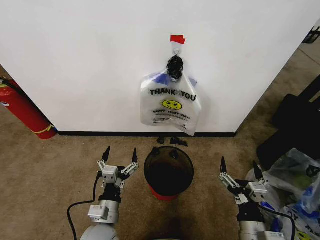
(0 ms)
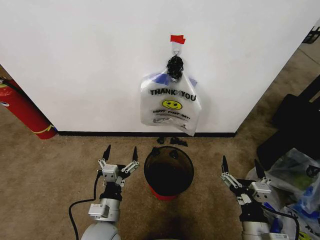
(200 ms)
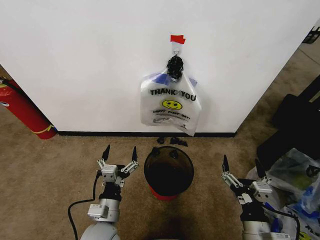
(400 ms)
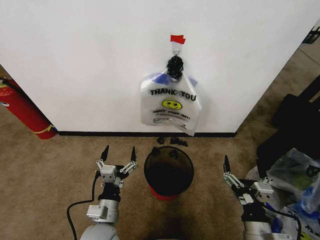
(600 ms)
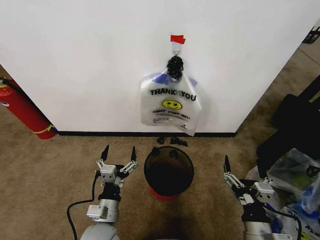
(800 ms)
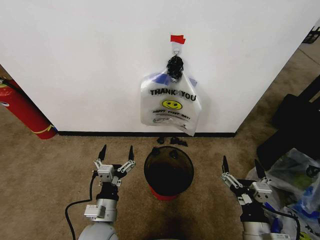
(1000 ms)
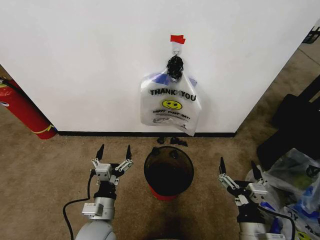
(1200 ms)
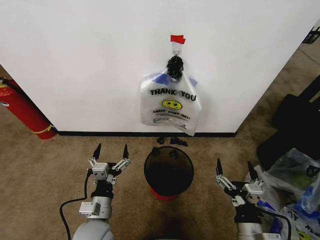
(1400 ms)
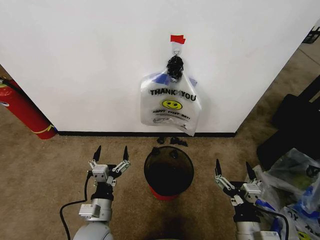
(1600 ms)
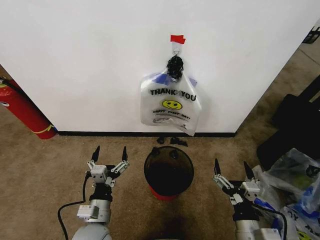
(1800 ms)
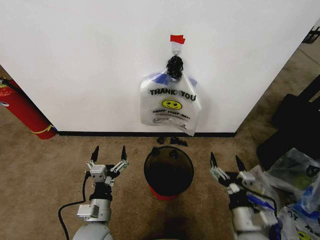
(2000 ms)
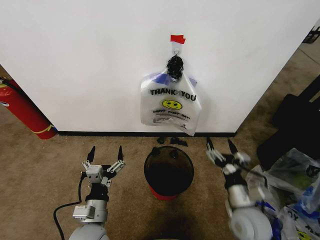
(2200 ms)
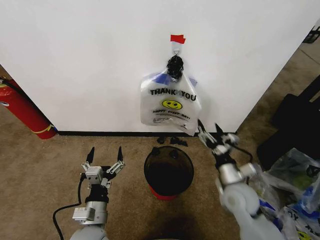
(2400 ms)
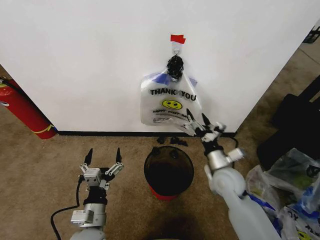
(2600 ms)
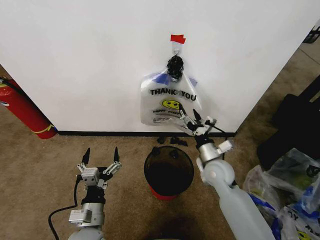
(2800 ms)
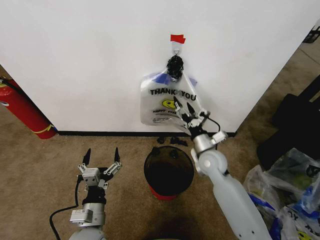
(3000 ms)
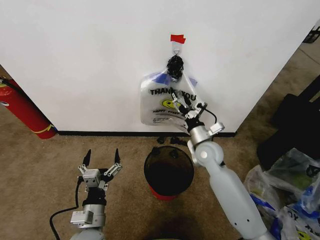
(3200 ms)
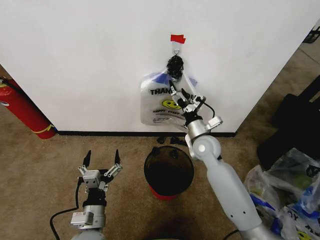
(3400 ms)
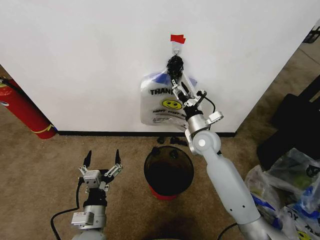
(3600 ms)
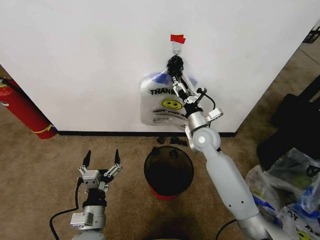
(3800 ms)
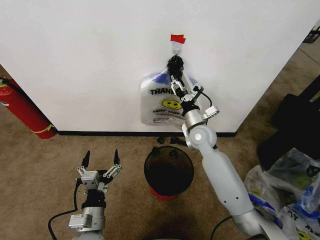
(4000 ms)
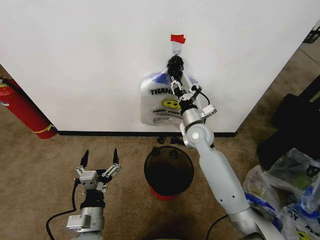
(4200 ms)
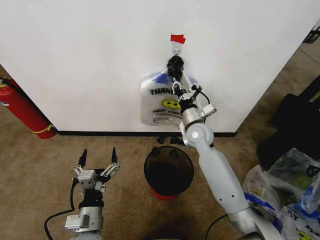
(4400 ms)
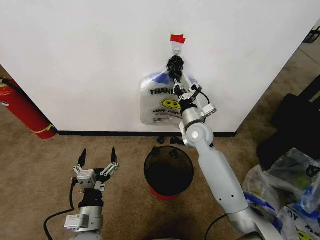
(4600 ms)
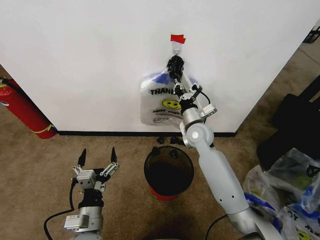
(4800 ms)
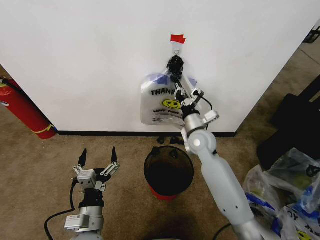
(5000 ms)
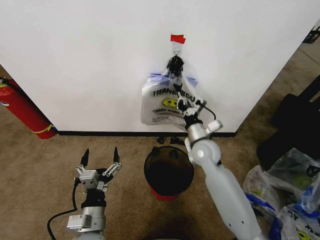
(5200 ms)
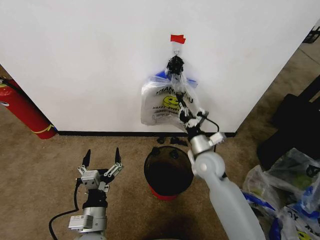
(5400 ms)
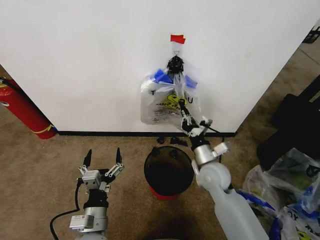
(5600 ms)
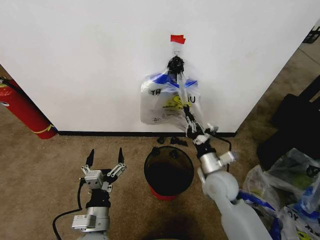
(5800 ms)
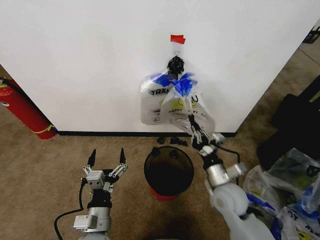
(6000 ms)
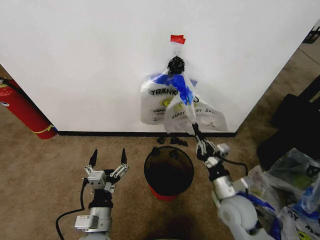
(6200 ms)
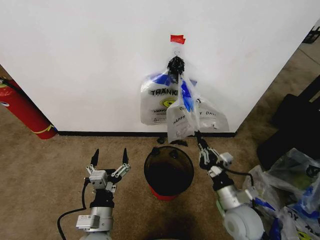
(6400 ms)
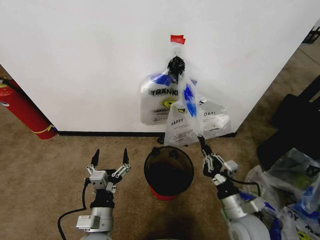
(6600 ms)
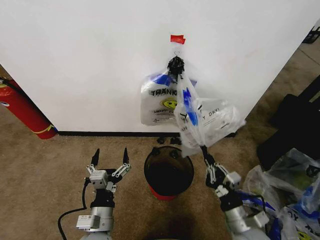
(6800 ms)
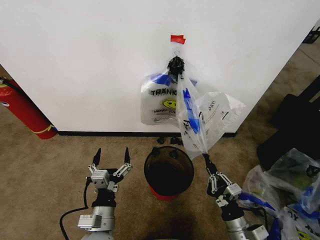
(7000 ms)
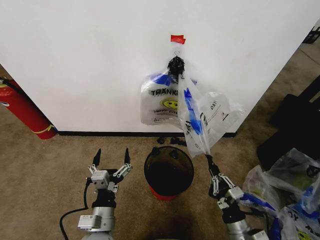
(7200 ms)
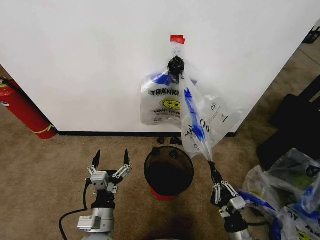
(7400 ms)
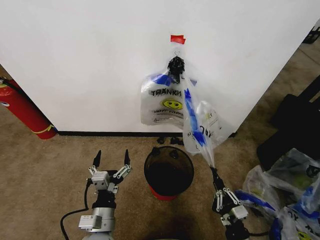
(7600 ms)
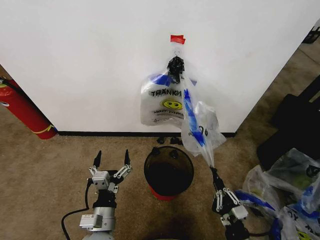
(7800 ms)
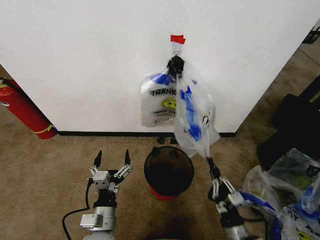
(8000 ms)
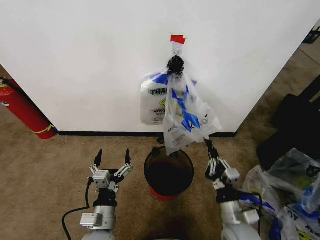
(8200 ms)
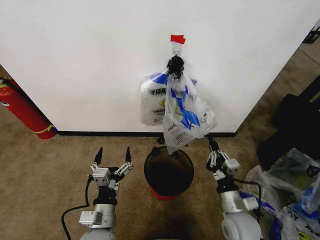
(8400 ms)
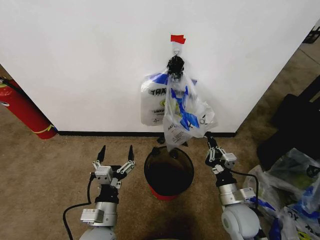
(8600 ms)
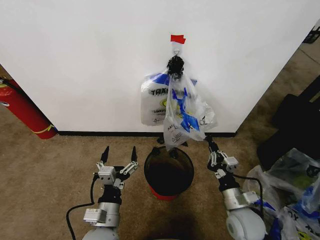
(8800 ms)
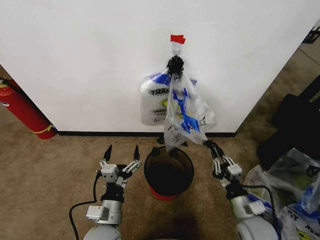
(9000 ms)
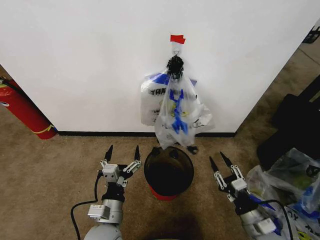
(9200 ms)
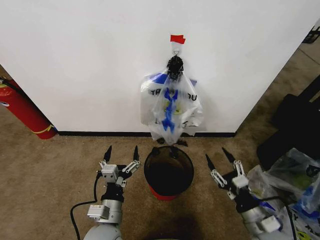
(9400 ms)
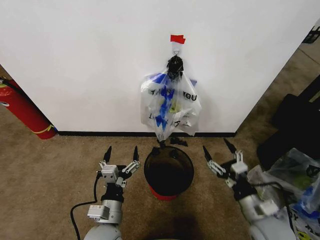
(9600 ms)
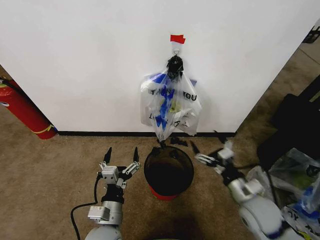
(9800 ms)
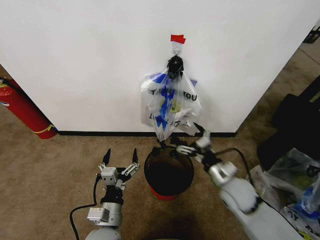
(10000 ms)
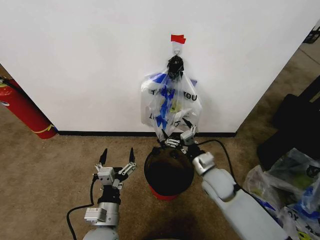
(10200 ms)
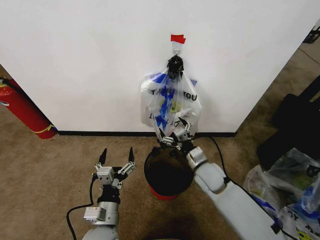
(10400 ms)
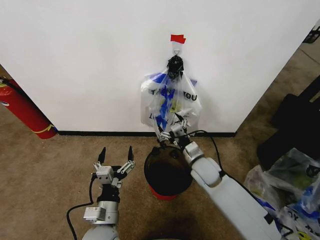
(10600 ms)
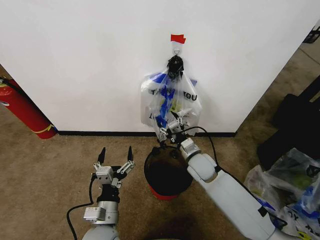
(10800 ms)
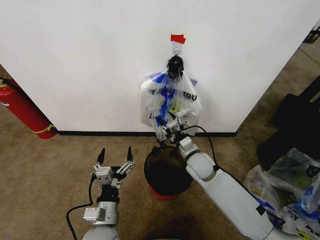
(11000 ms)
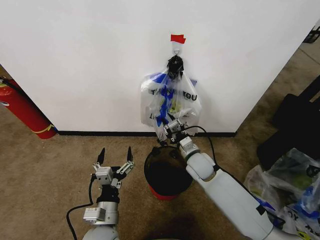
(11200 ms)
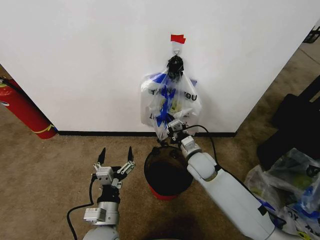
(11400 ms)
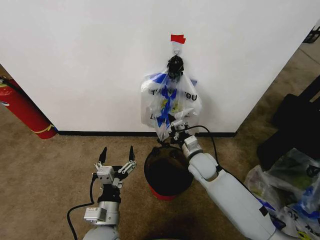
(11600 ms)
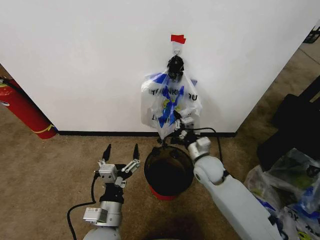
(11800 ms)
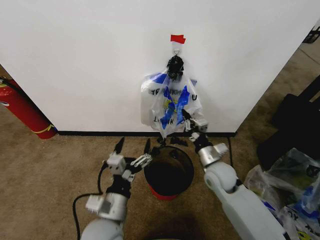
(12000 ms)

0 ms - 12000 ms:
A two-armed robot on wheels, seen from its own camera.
Task of the whole recording: Pick up the garbage bag from the wall and place it over the trash bin.
1600 ms - 3000 ms: The right gripper goes roughly 30 cm forward.
3000 ms - 4400 ms: The right gripper goes some 10 cm forward and upward, and closes its fingers.
4400 ms - 6000 ms: The right gripper travels backward and downward by about 20 cm.
6000 ms - 7600 ms: The right gripper travels backward and downward by some 20 cm.
7600 ms - 9000 ms: The right gripper heads forward and upward, covering some 10 cm.
9000 ms - 10400 ms: The right gripper shifts some 20 cm forward and to the left, and opens.
10400 ms - 12000 ms: The right gripper closes up. The left gripper heads upward, covering some 5 cm.

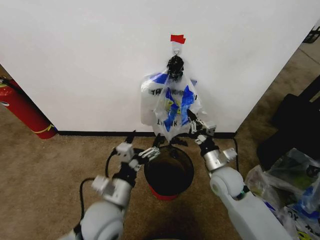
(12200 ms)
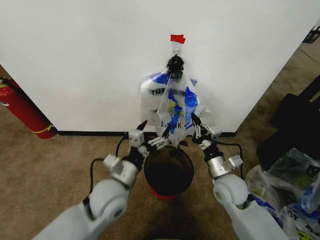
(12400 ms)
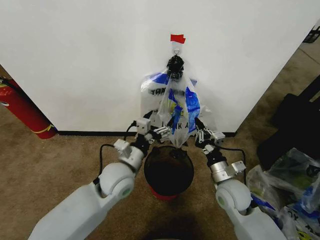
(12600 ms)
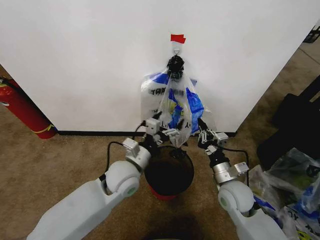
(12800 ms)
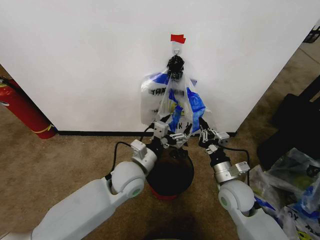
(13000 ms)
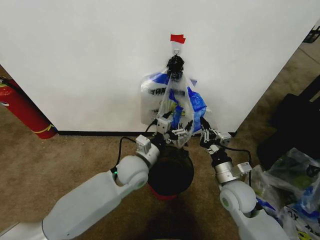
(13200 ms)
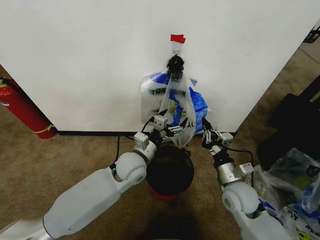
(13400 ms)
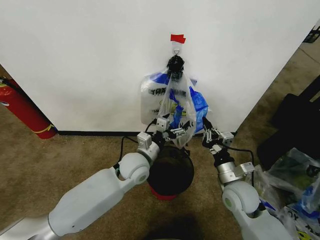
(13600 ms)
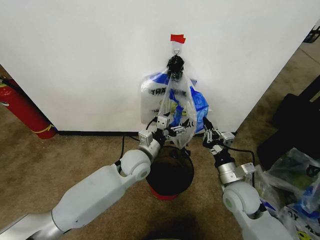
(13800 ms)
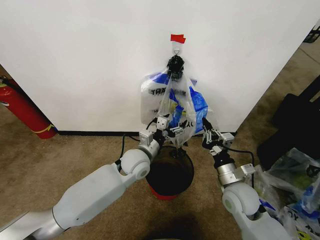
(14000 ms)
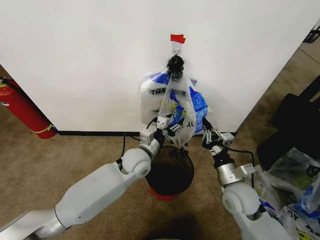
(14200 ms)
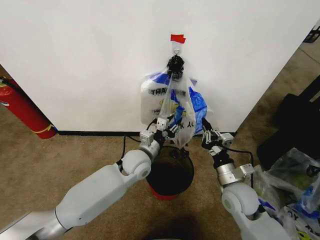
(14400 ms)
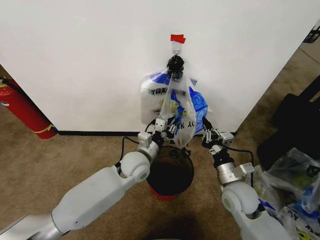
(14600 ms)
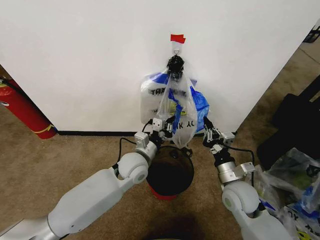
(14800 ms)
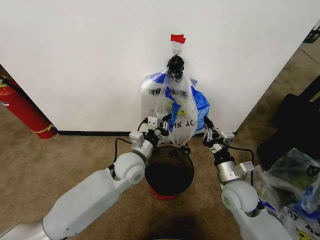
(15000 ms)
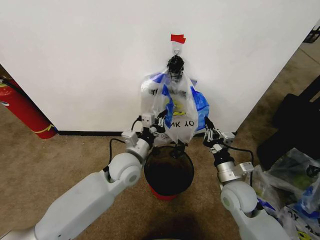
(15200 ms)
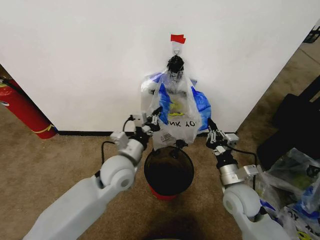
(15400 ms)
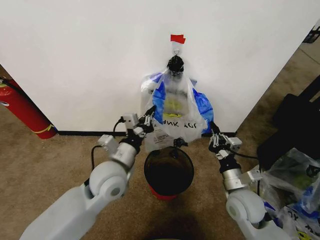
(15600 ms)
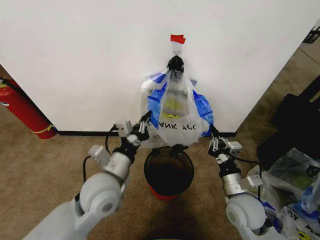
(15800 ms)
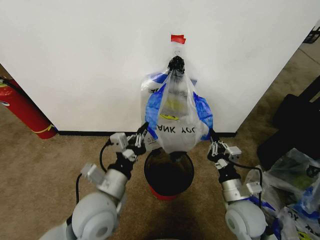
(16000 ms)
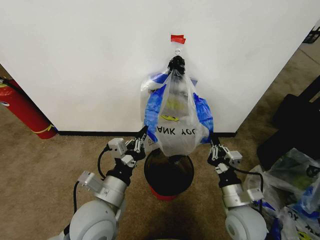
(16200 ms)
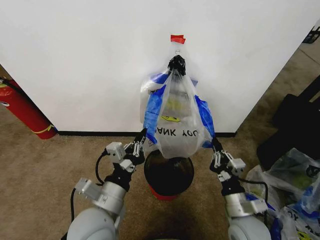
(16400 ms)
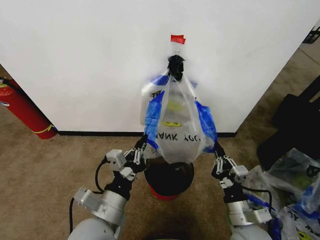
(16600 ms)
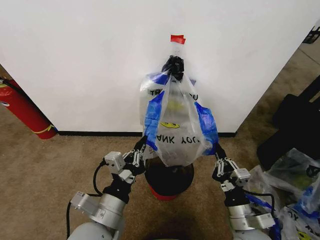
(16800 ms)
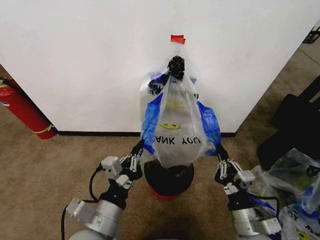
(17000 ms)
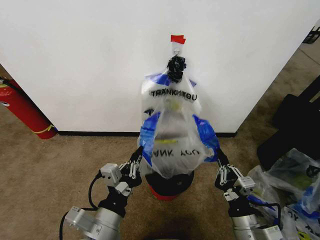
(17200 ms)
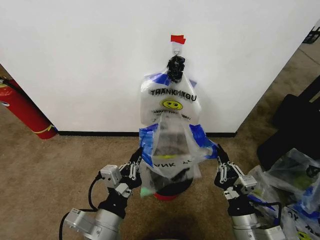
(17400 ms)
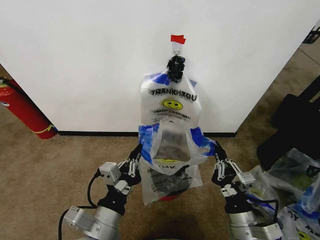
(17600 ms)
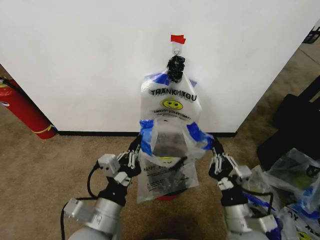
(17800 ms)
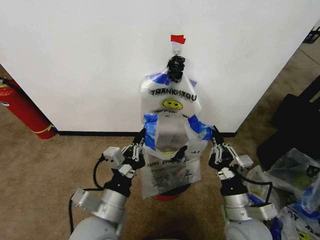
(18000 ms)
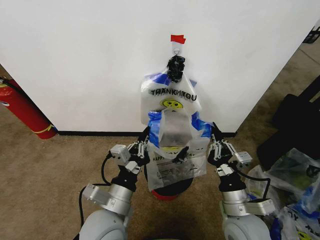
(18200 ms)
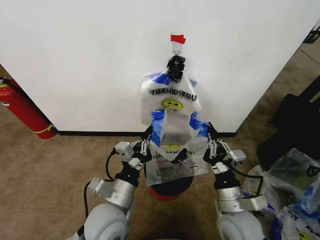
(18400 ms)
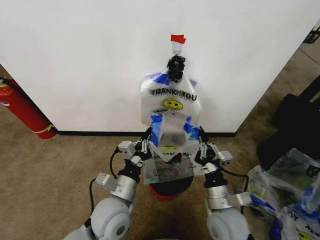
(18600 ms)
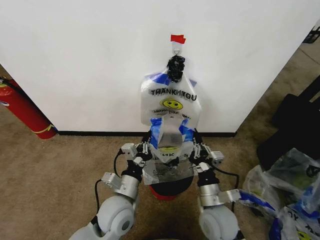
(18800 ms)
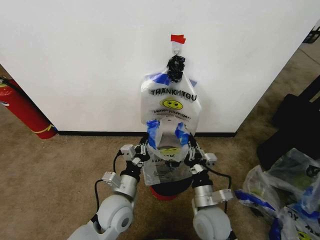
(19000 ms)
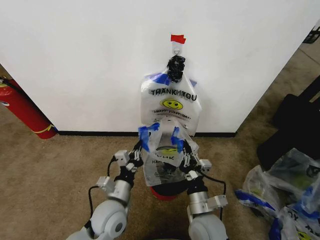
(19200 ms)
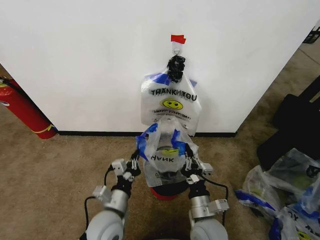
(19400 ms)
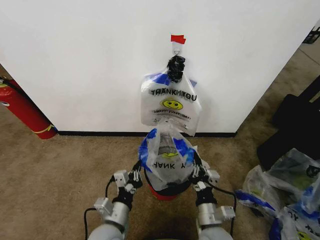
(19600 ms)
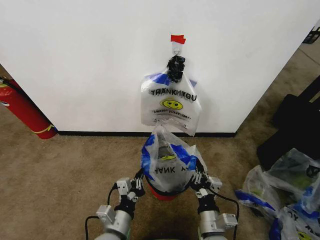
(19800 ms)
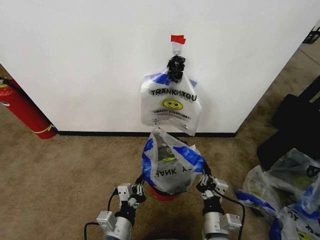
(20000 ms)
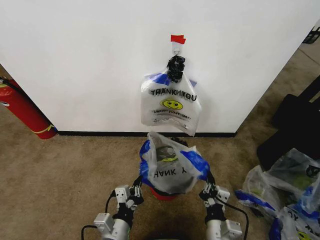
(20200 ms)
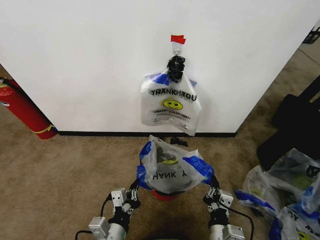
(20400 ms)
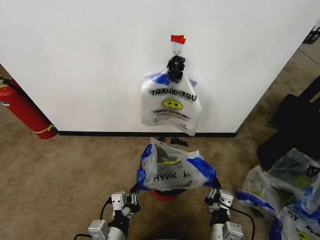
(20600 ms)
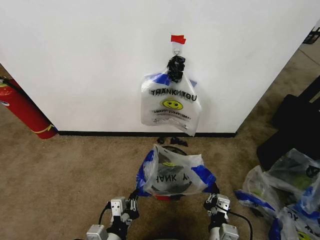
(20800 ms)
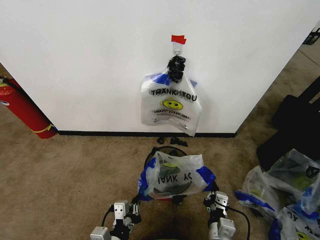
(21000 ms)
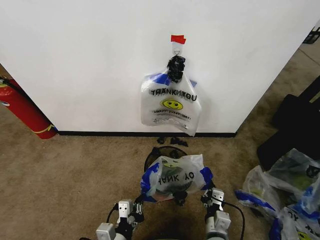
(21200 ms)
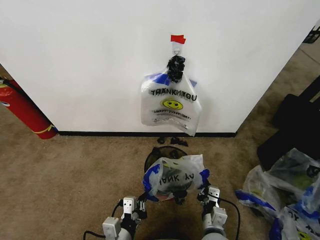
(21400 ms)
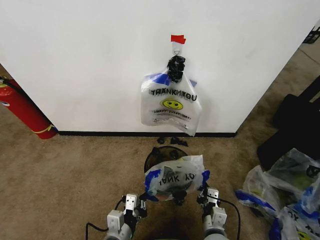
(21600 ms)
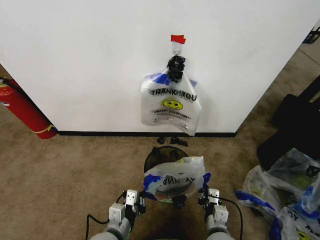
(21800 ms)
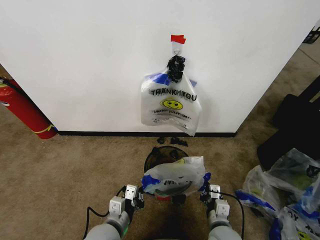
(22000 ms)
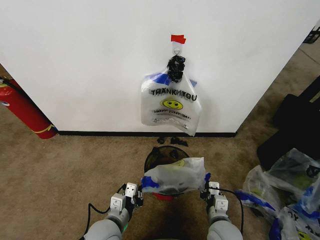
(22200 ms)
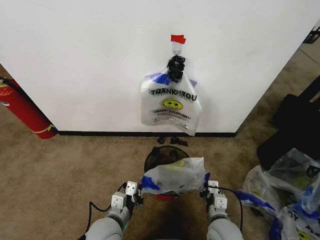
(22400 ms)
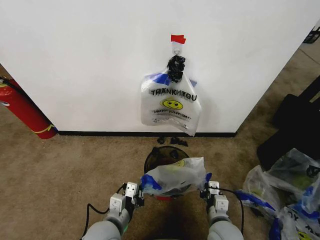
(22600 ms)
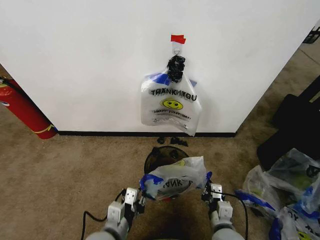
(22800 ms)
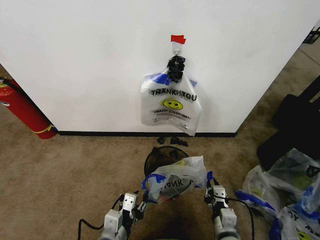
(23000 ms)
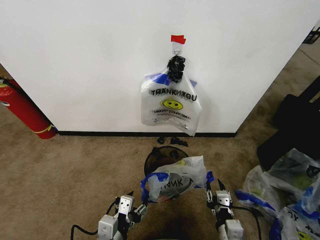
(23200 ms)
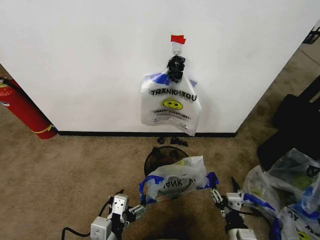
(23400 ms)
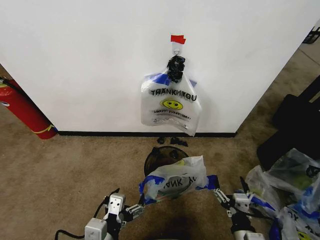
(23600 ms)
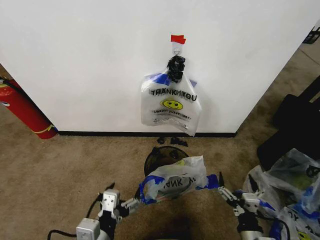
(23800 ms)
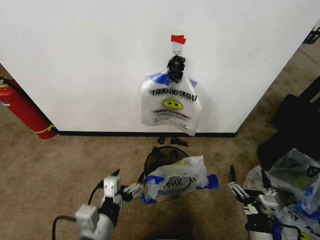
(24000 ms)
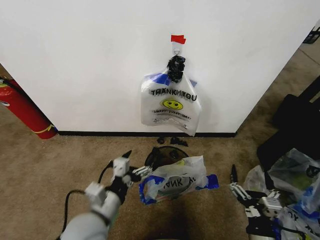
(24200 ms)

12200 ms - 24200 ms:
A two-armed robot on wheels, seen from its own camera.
Task of the whole recording: Pick up the garbage bag from the wall and place it over the trash bin.
12200 ms - 13800 ms: The left gripper is displaced forward by some 20 cm. The right gripper is displaced backward by roughly 5 cm.
13800 ms - 15200 ms: The left gripper closes.
15200 ms - 16600 ms: The left gripper goes some 20 cm backward. The right gripper moves backward, some 10 cm.
16600 ms - 18200 ms: The right gripper heads upward, covering approximately 5 cm.
18200 ms - 19800 ms: The left gripper goes approximately 10 cm downward. Meanwhile the right gripper travels downward and to the left by roughly 10 cm.
19800 ms - 21200 ms: The left gripper travels backward by roughly 5 cm.
21200 ms - 22600 ms: The right gripper goes roughly 5 cm forward; the left gripper travels forward by about 10 cm.
22600 ms - 24200 ms: The left gripper is displaced upward and backward by roughly 10 cm, and opens up. Meanwhile the right gripper shifts roughly 10 cm backward and to the right, and opens its fingers.
